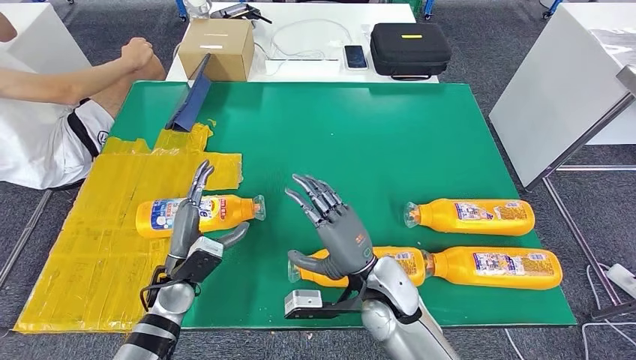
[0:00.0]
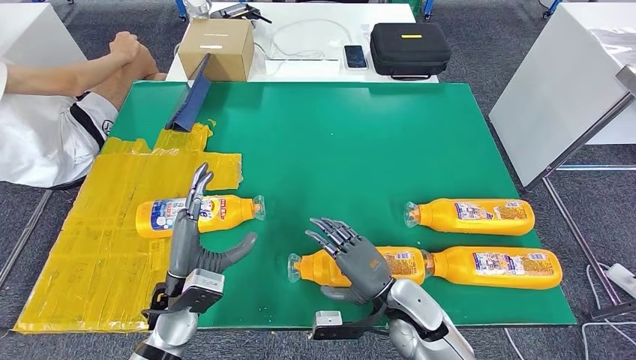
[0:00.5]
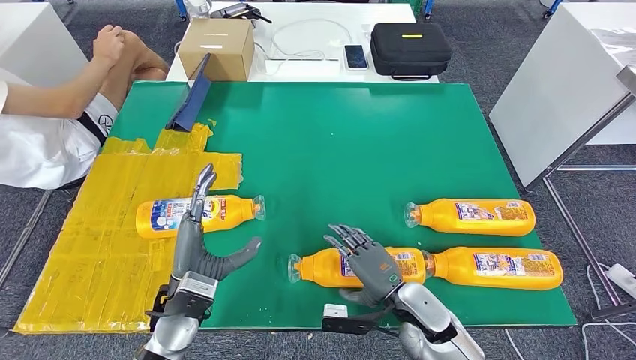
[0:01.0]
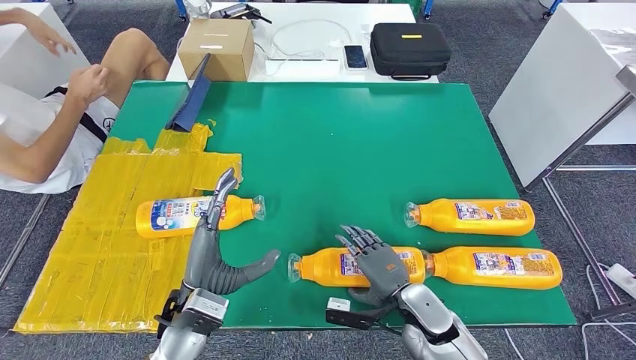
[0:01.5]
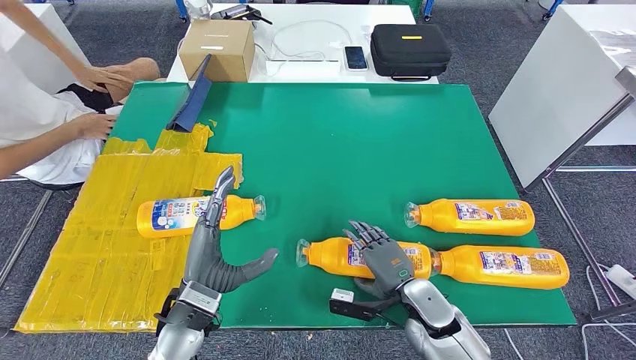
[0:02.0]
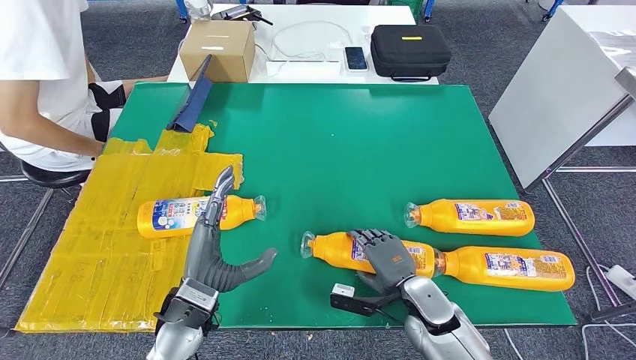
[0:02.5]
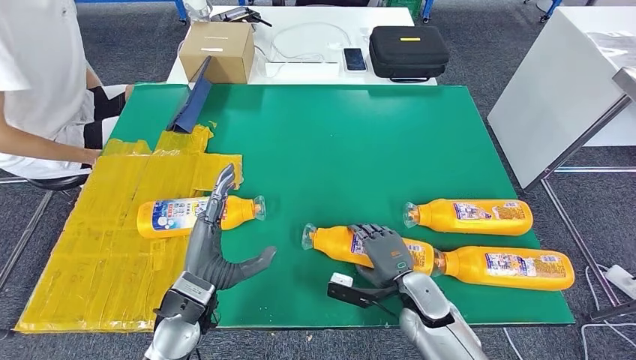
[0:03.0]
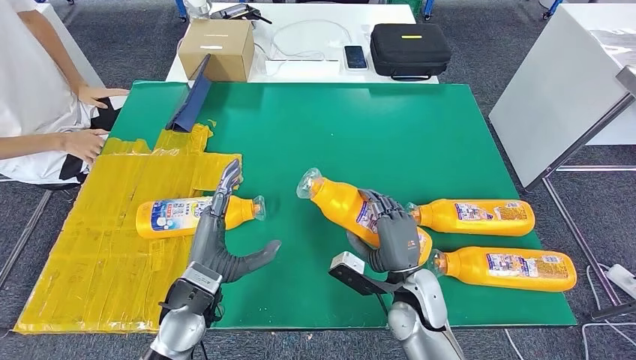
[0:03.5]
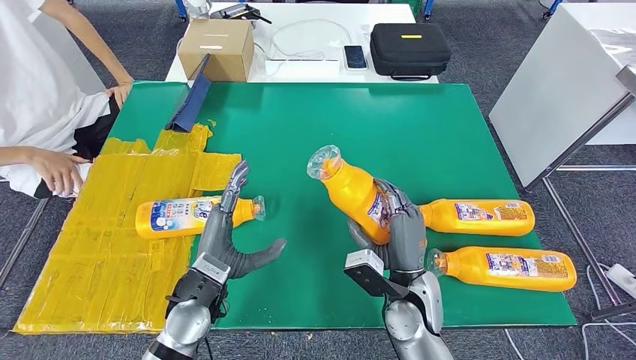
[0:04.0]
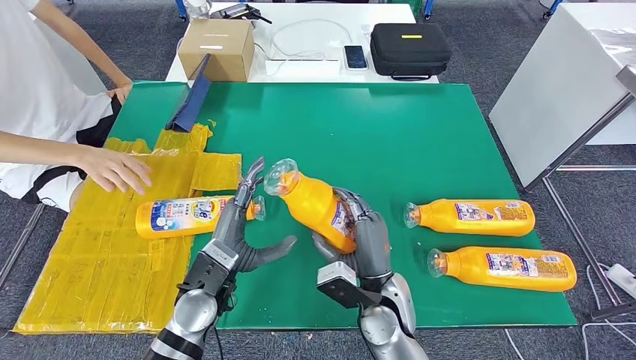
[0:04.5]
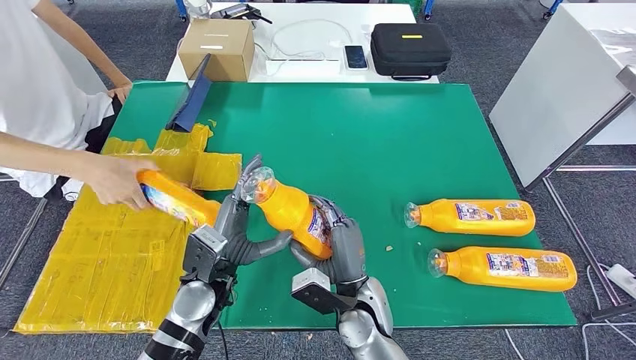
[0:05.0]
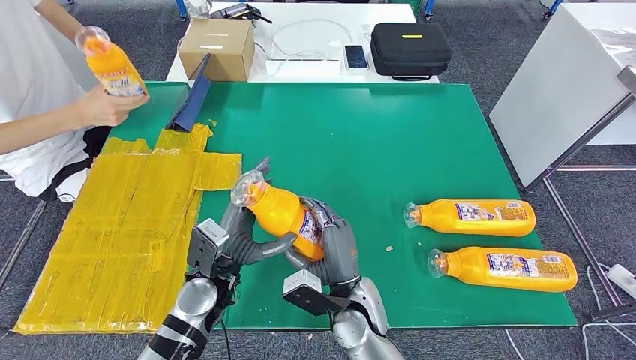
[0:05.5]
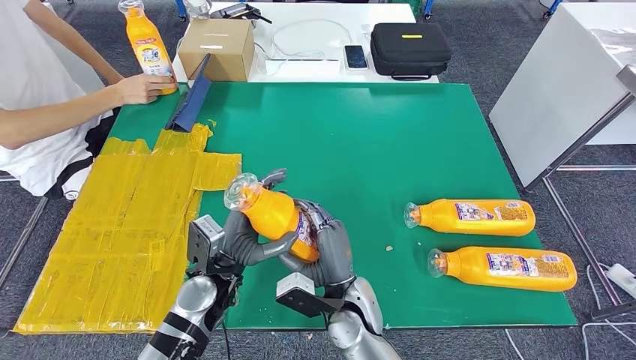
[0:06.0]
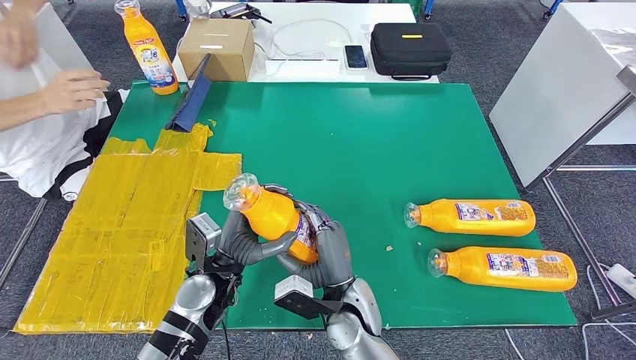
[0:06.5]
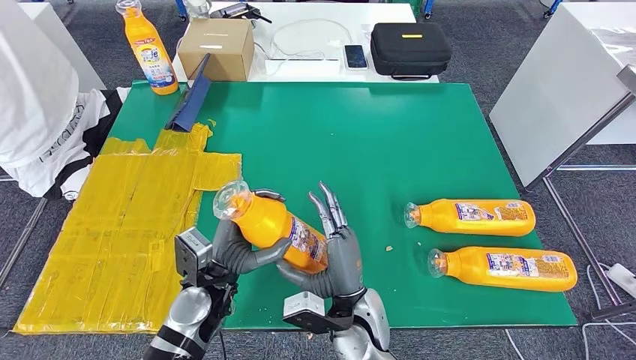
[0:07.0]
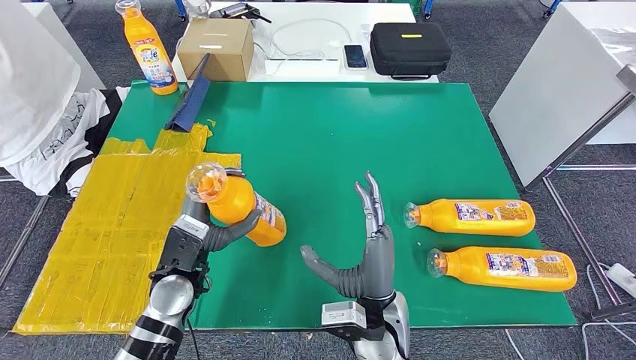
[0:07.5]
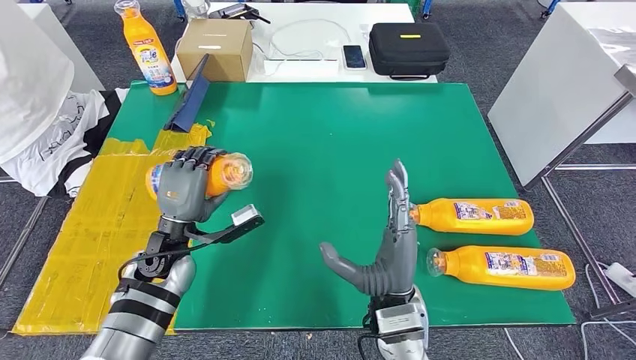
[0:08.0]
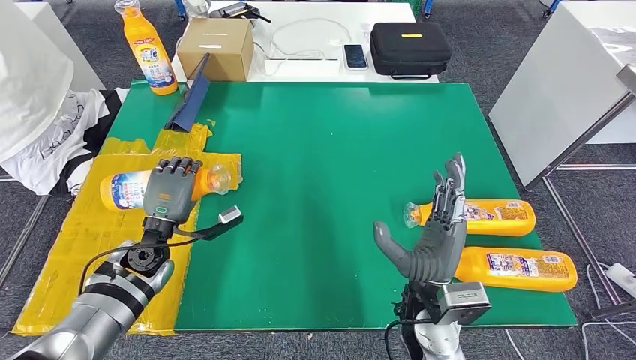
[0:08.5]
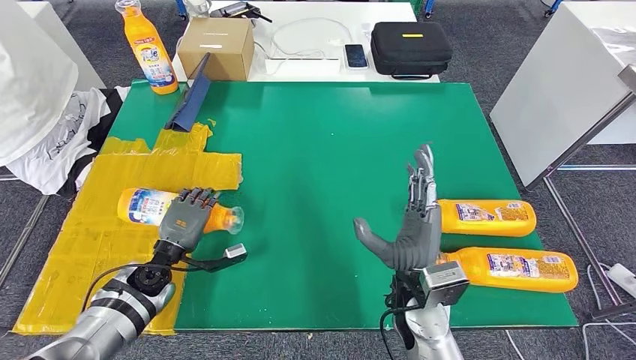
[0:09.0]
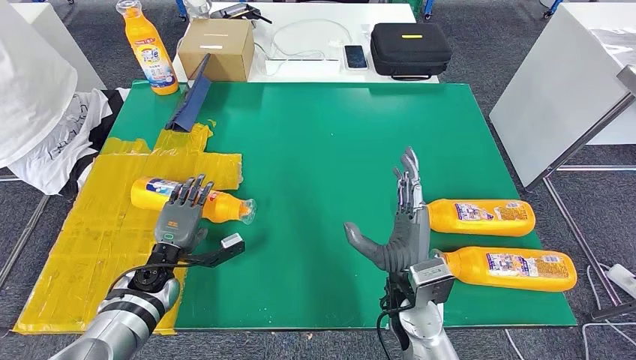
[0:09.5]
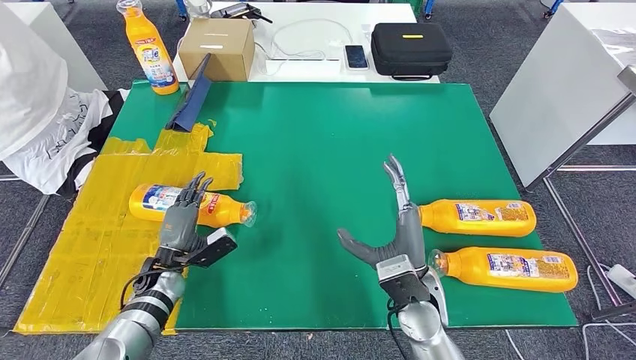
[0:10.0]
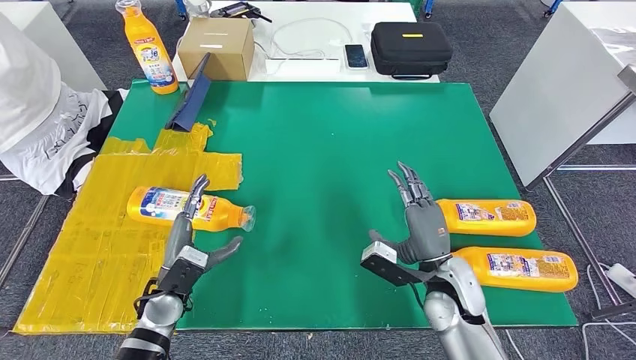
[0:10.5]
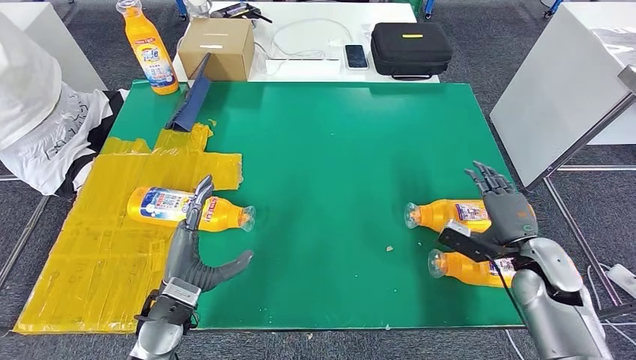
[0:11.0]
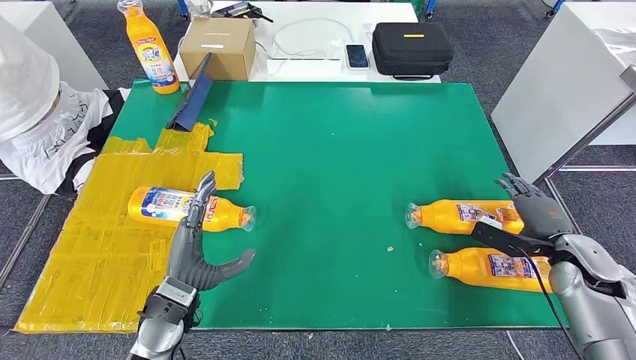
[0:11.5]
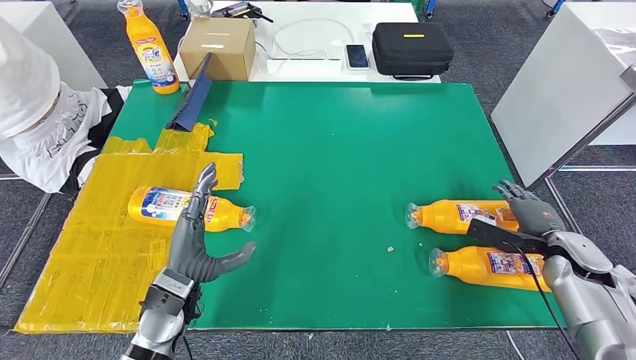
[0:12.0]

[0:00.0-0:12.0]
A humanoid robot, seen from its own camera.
Step, 0:01.5 to 0:06.5: Pick up the bottle from the table.
0:08.0 to 0:10.0: The right hand moves about 5 cm; the left hand moves downward and to the left, about 15 cm.
0:10.0 to 0:12.0: The left hand is displaced upward, to the right and backward by about 15 cm; the right hand travels to the right by approximately 30 cm.

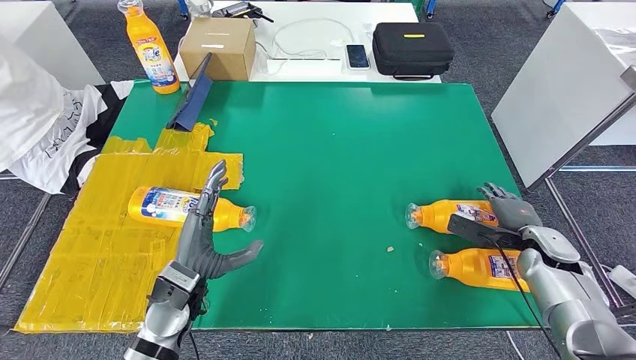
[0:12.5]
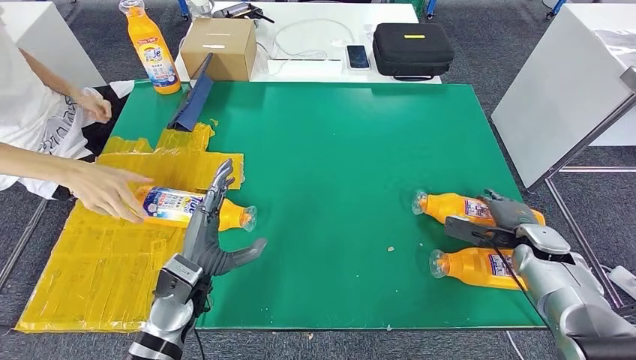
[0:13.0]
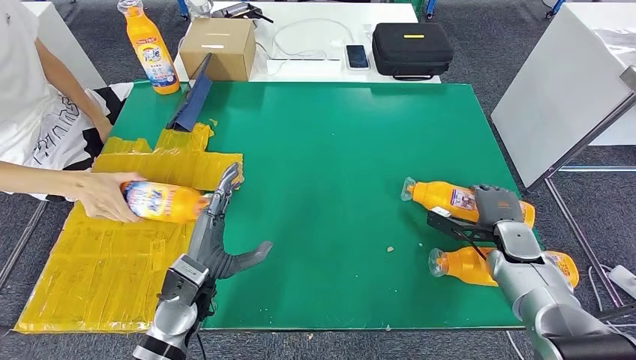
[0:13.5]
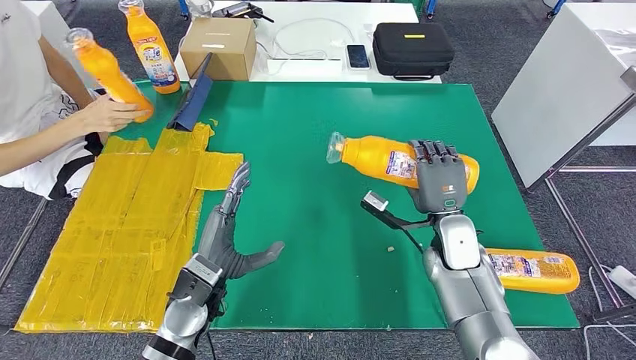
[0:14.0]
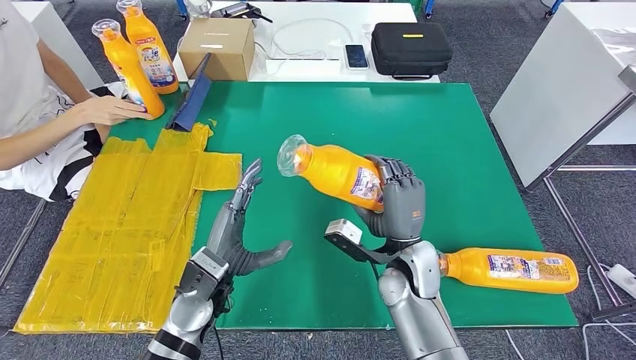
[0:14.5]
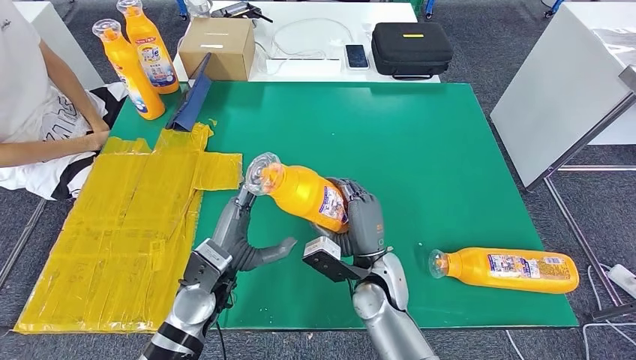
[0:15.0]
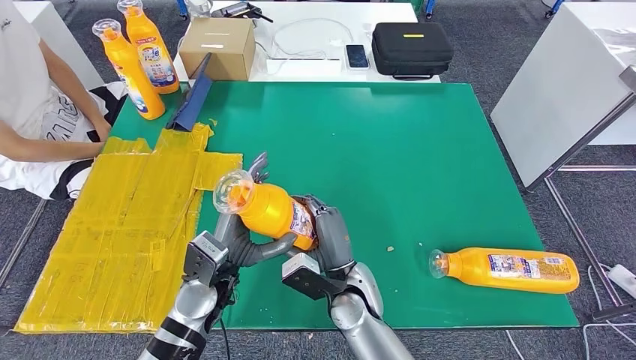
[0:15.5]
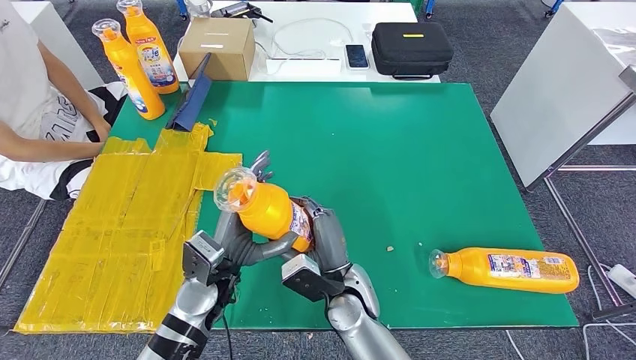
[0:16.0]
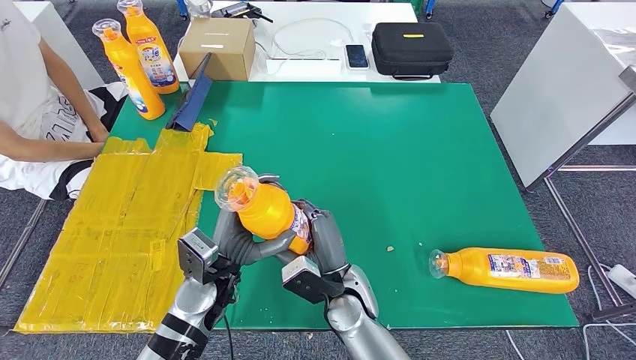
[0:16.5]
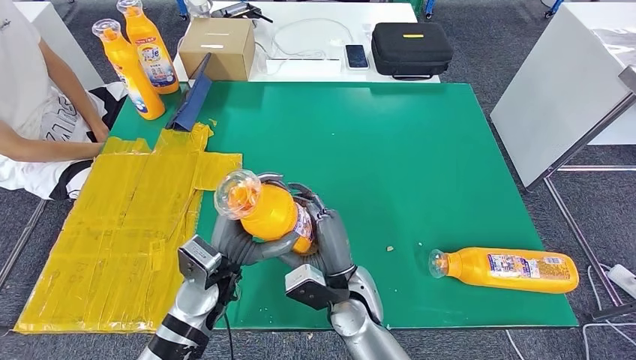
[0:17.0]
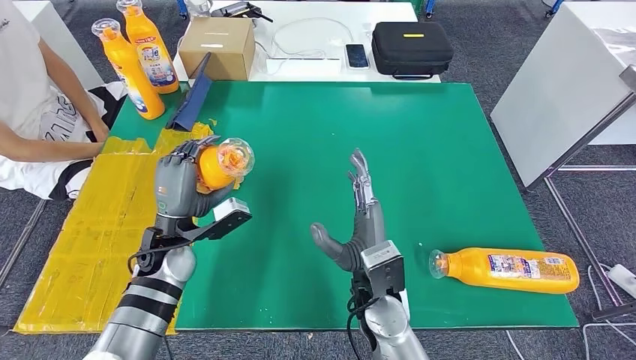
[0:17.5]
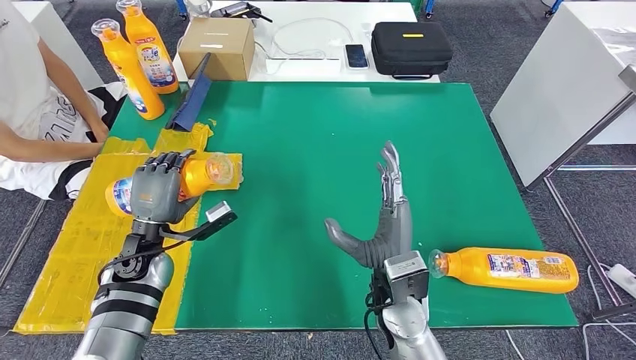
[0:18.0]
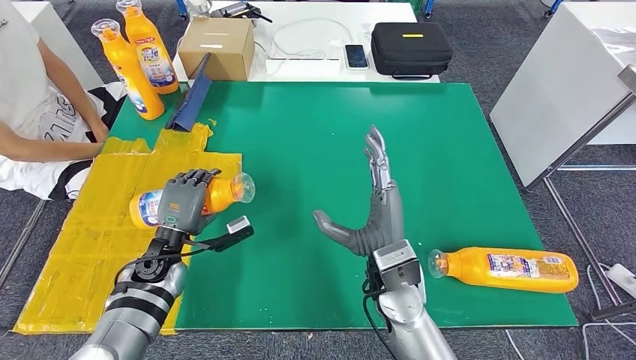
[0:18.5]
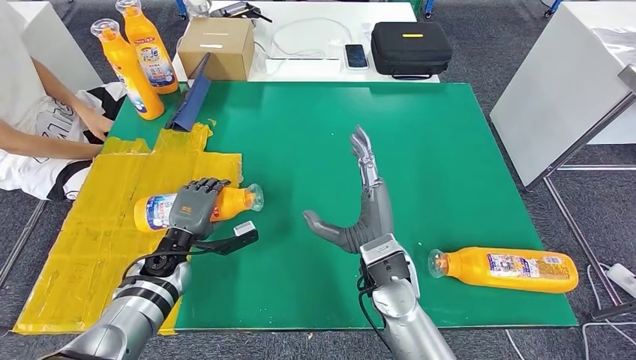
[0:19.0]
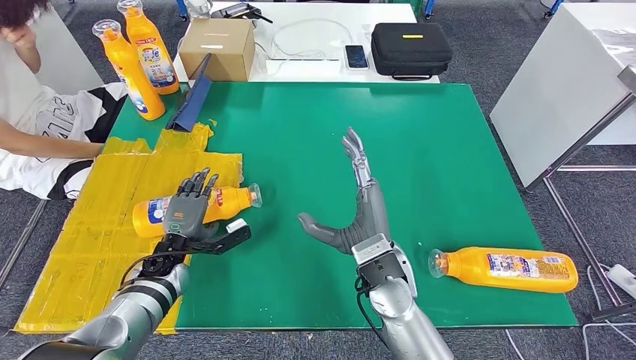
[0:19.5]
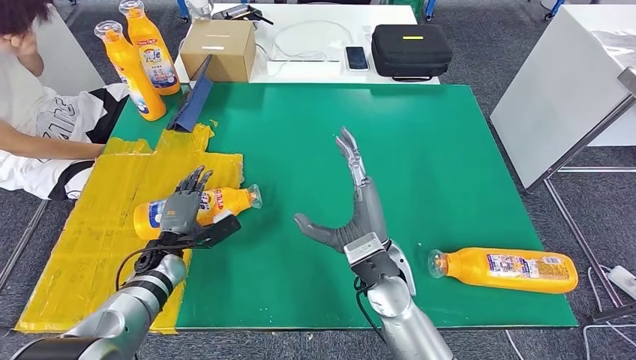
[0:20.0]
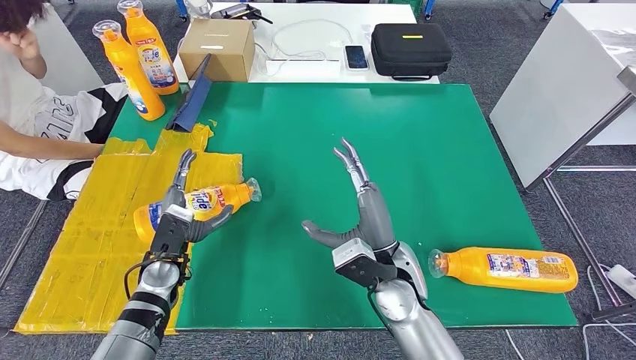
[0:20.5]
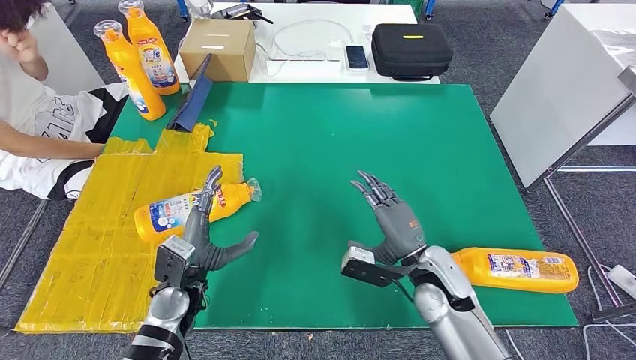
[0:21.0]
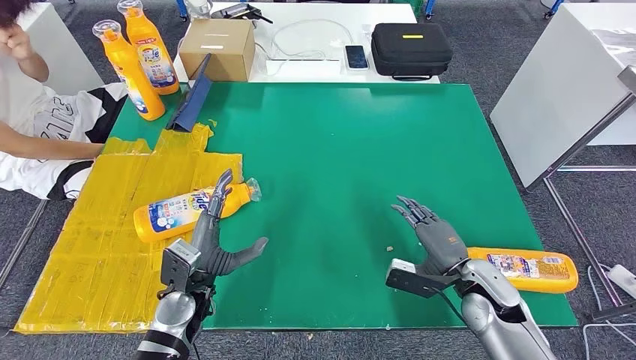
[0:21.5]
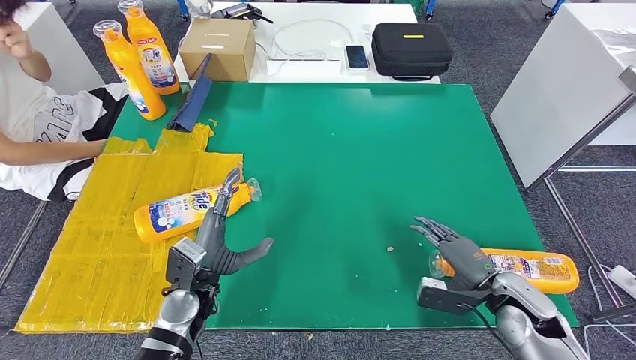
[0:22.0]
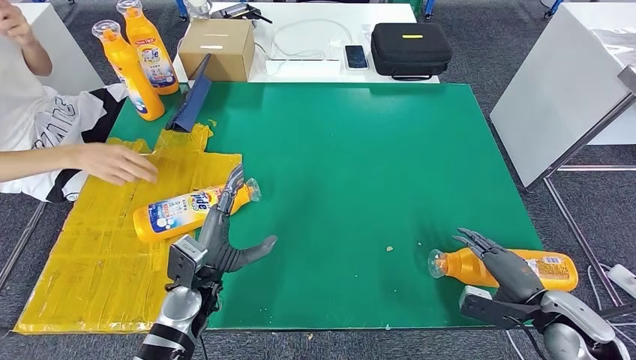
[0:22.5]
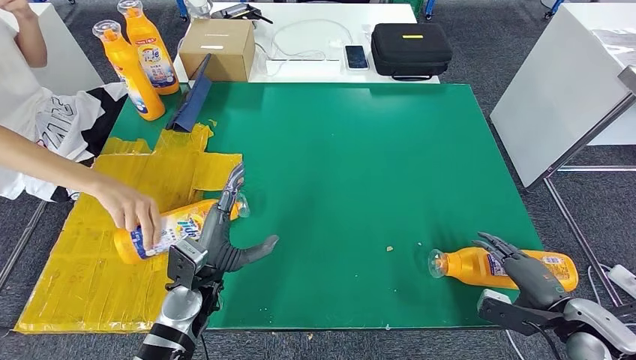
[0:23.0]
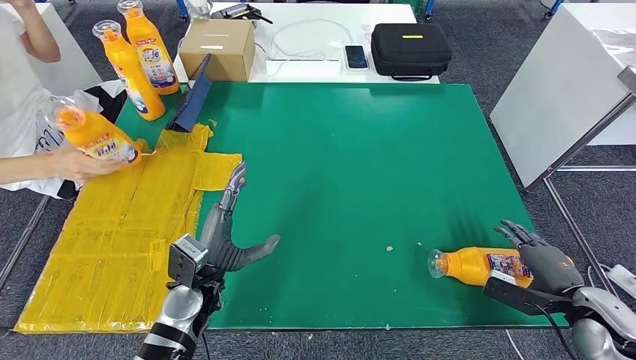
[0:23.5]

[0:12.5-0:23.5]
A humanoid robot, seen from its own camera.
Step, 0:13.0 to 0:16.0: Pick up the bottle from the table.
Step, 0:17.0 to 0:21.5: Flip the bottle to face forward.
0:14.5 to 0:16.0: The right hand shifts some 10 cm to the left.
0:16.0 to 0:18.0: The right hand travels to the right and upward by about 10 cm, while the left hand moves to the left, about 15 cm.
0:18.0 to 0:20.0: The left hand shifts approximately 10 cm downward.
0:20.0 to 0:21.5: The left hand shifts approximately 15 cm to the right and backward. The right hand heads to the right, covering some 20 cm.
0:21.5 to 0:23.5: The right hand is displaced to the right by approximately 15 cm.
